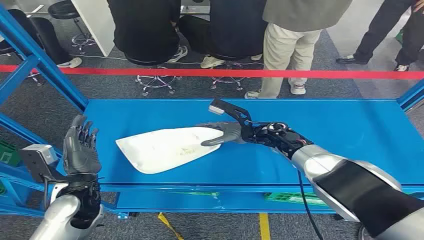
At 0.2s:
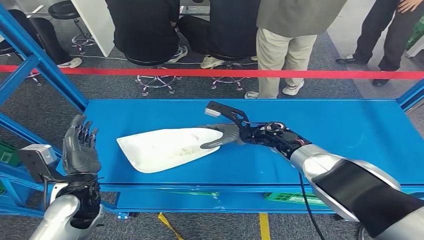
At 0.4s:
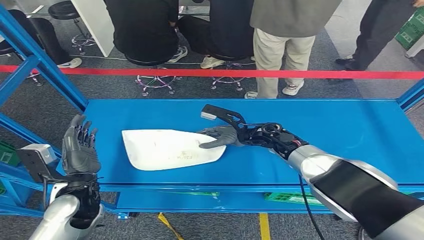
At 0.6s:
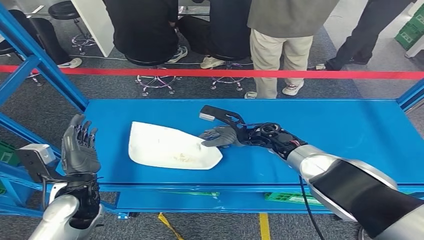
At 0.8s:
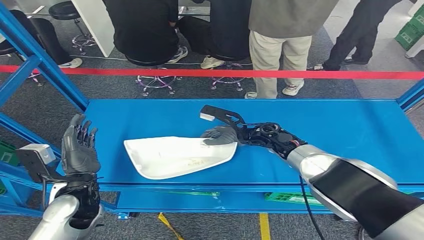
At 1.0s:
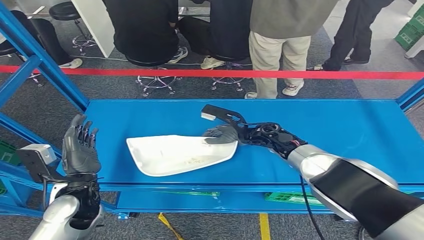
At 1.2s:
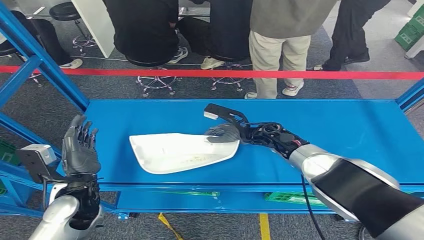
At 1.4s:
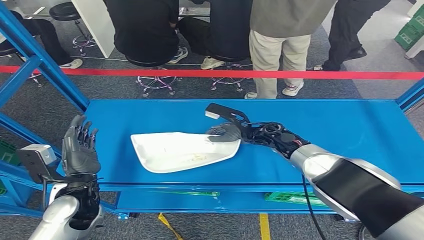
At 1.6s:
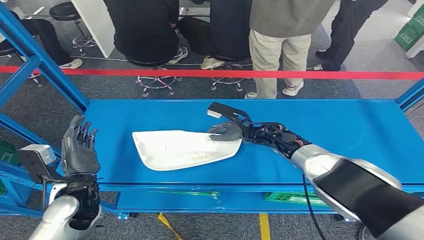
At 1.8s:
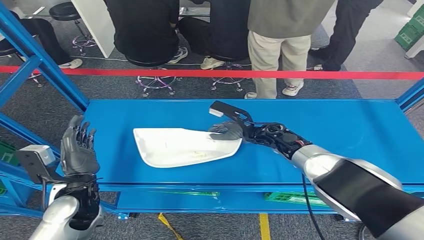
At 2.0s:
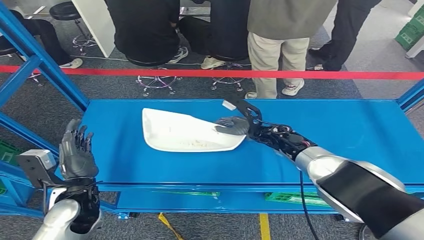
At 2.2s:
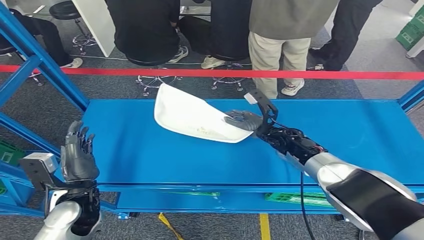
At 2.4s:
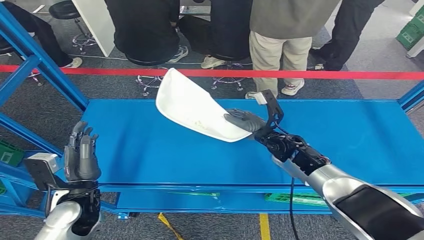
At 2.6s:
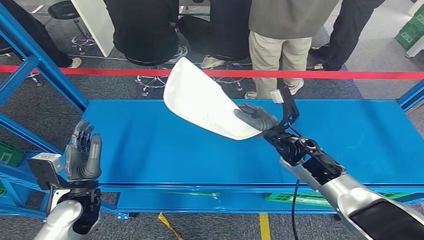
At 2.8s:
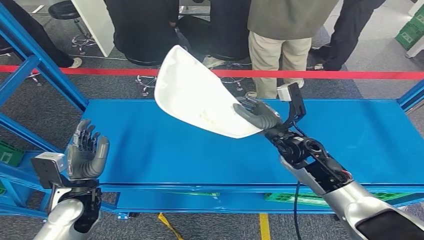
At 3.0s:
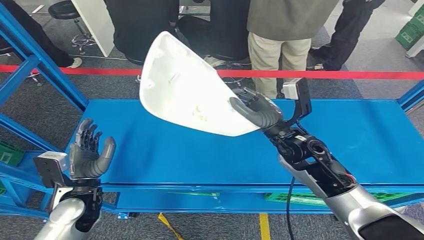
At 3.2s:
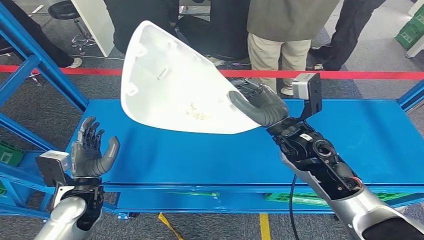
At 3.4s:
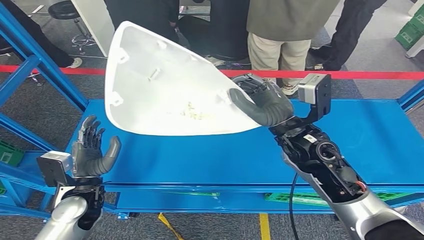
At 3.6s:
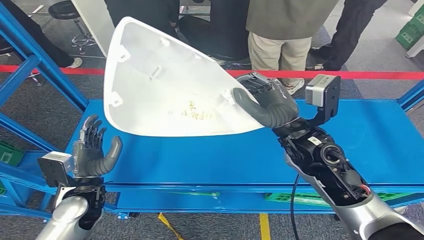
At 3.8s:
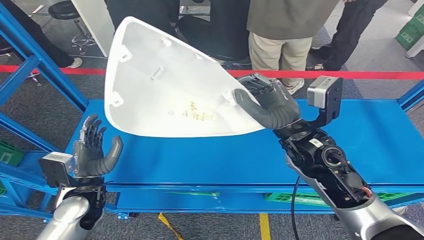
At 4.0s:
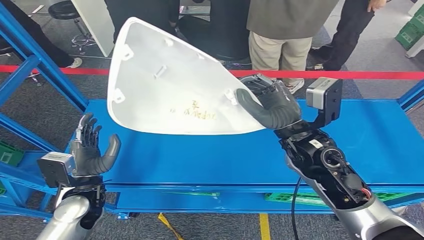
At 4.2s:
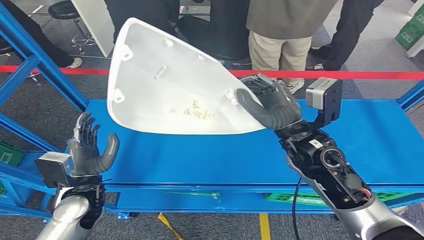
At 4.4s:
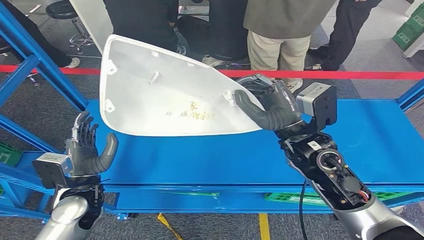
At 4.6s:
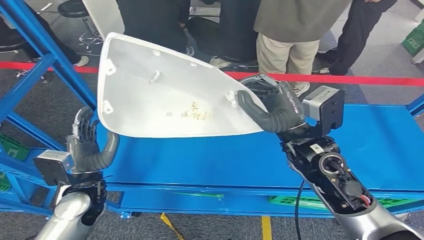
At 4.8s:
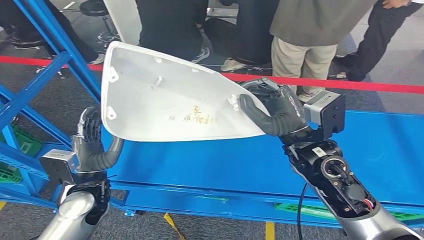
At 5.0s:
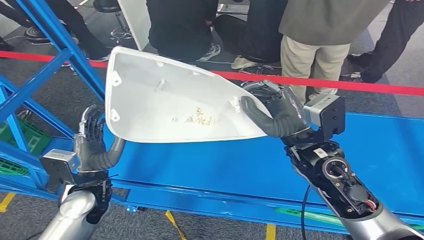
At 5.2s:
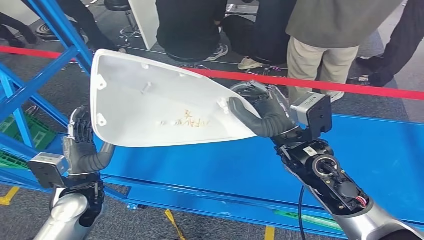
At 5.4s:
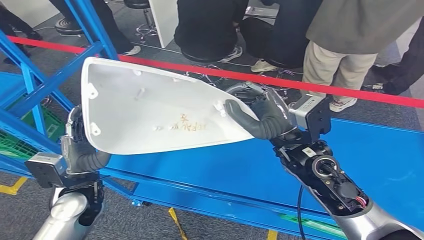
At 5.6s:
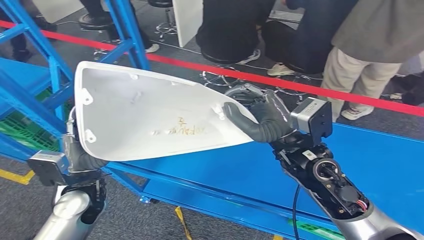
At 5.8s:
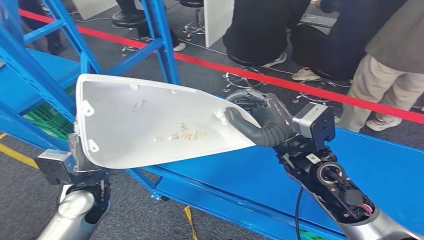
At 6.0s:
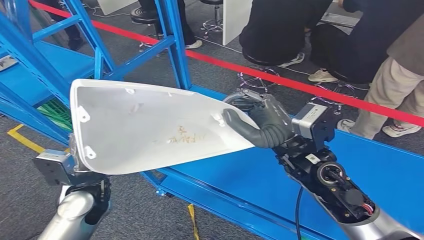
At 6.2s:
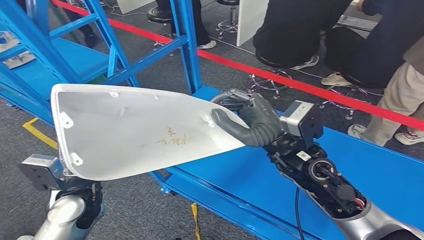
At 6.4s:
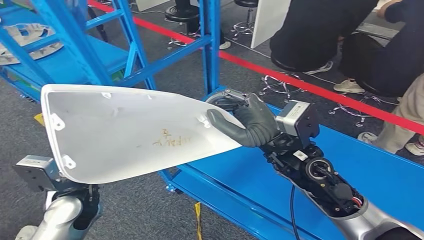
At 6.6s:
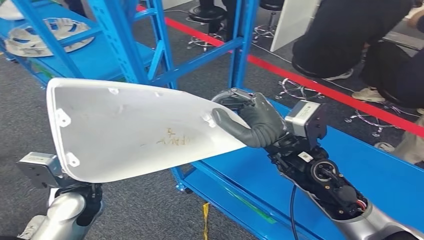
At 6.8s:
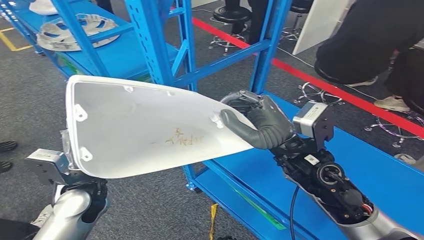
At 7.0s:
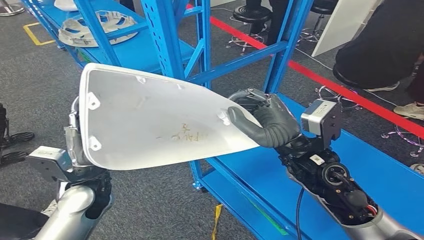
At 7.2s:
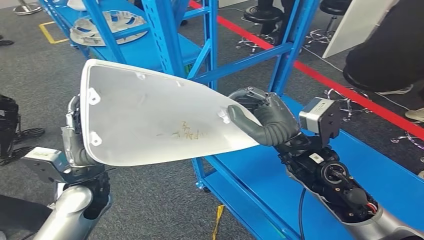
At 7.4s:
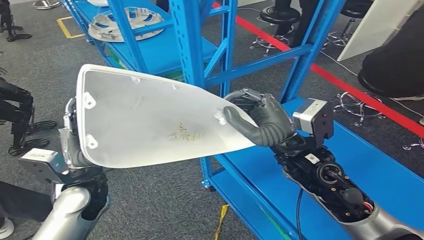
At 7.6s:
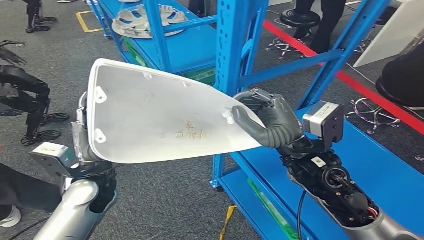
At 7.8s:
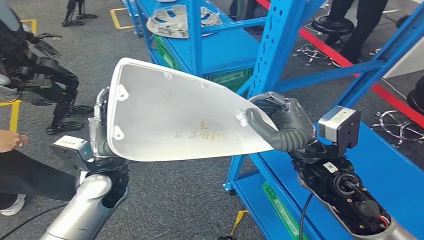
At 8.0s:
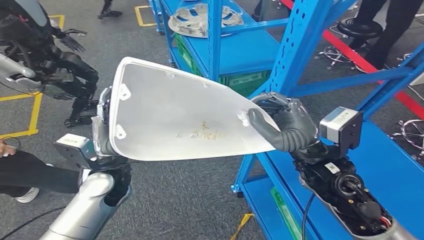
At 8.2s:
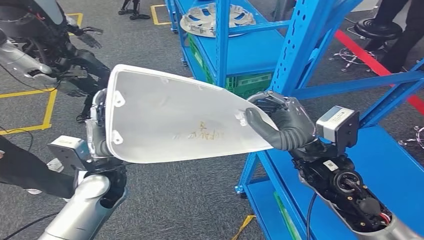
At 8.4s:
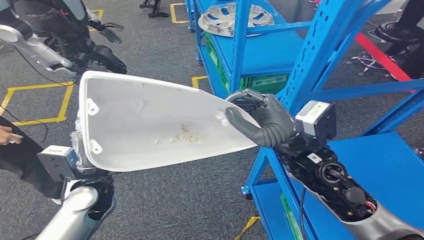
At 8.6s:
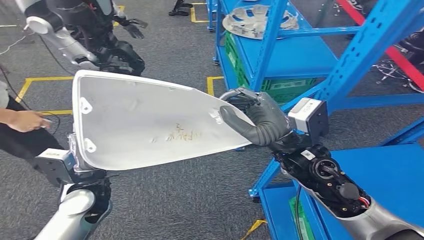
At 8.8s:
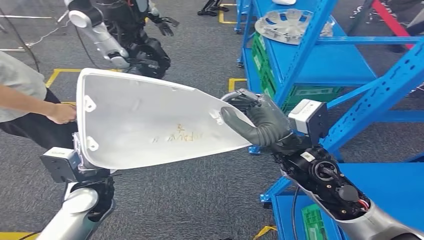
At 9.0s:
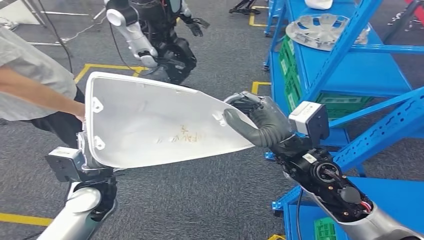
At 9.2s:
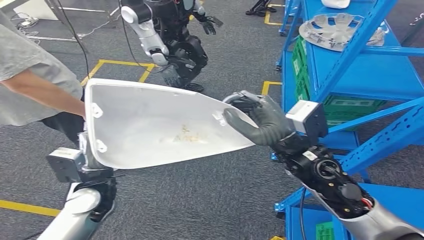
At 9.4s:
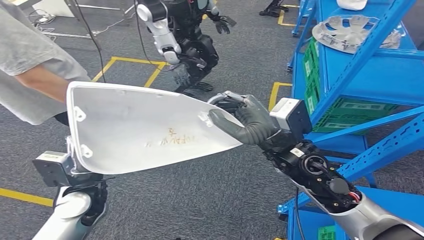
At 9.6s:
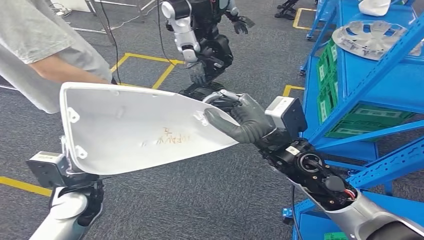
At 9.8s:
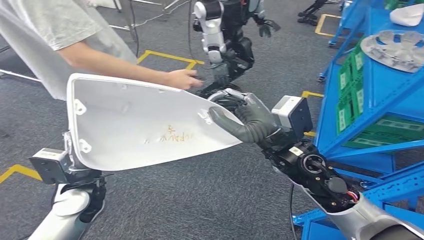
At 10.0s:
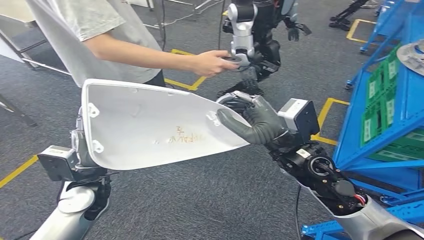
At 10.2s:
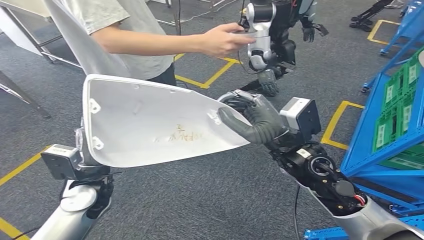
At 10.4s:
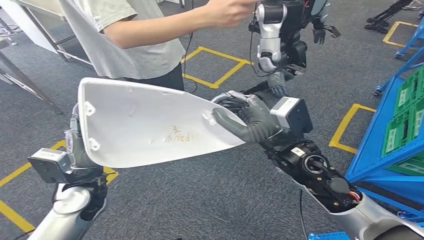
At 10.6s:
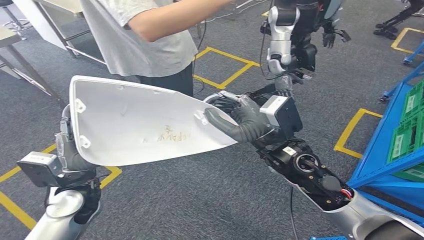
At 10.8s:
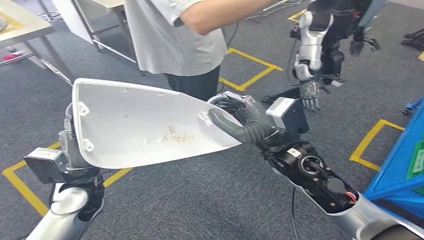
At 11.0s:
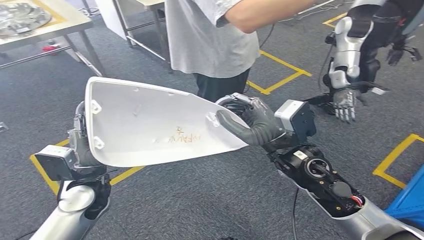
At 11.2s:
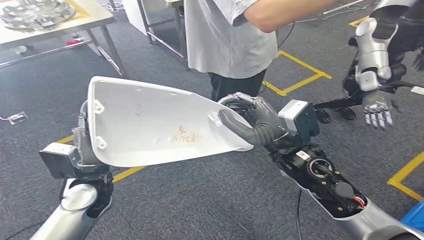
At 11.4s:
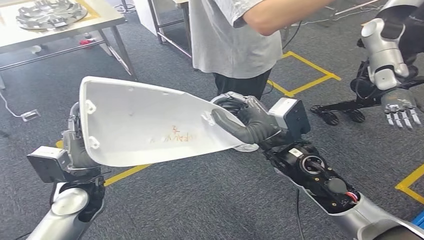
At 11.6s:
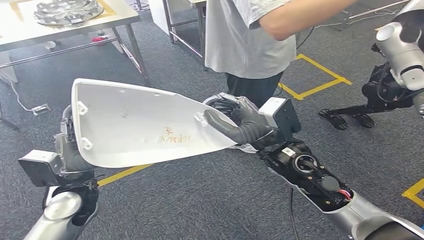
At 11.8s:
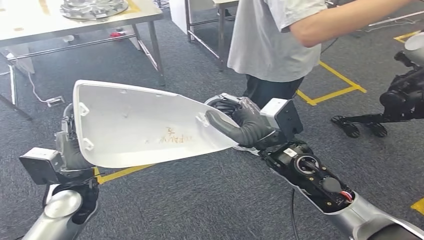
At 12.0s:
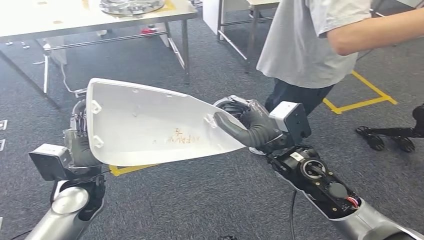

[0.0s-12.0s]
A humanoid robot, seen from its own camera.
Step, 0.0s to 6.4s: Pick up the small component from the shelf.

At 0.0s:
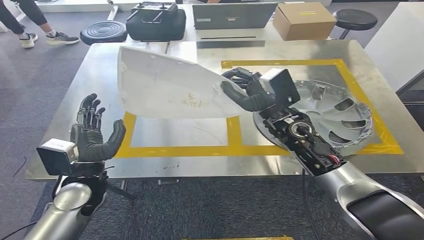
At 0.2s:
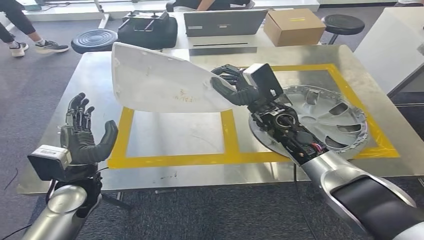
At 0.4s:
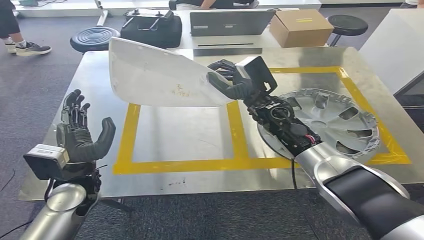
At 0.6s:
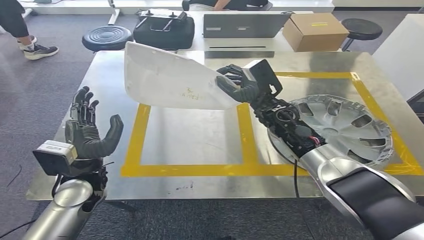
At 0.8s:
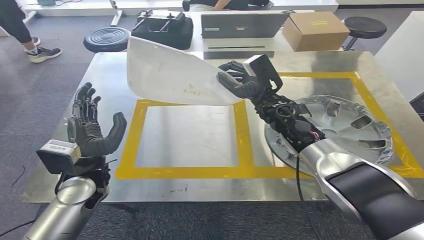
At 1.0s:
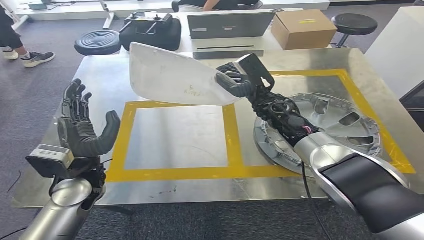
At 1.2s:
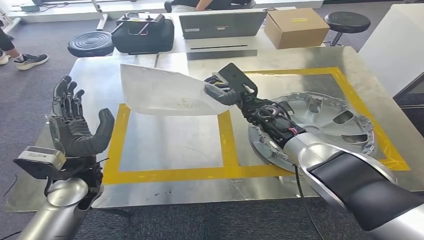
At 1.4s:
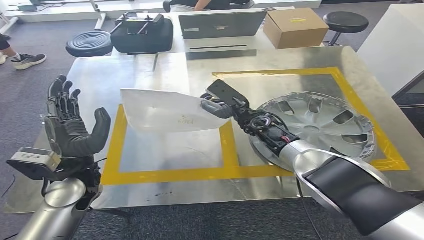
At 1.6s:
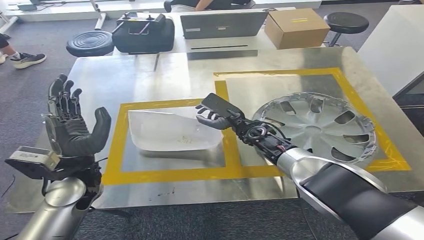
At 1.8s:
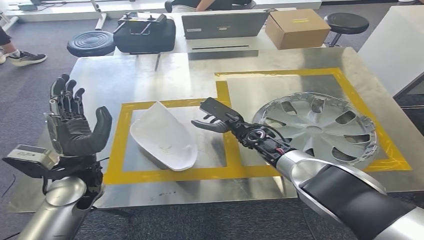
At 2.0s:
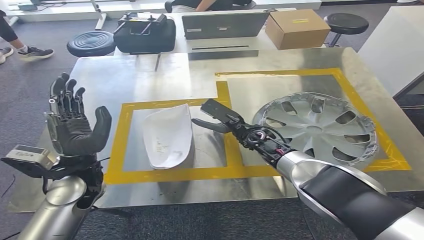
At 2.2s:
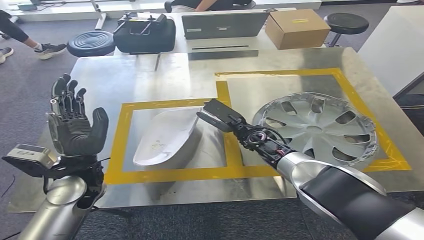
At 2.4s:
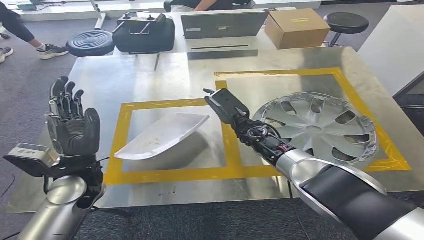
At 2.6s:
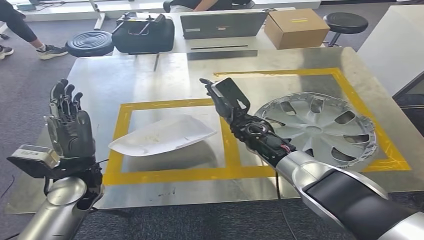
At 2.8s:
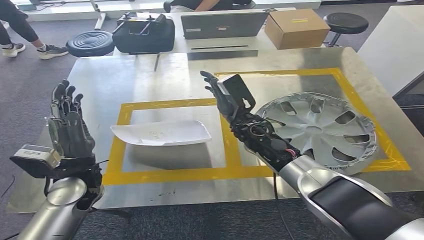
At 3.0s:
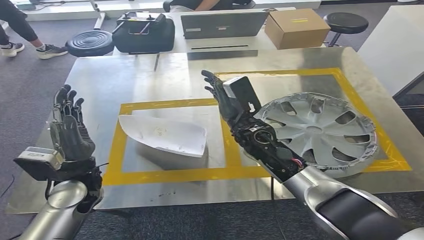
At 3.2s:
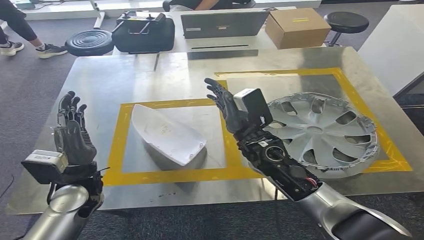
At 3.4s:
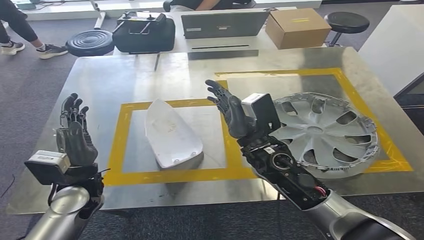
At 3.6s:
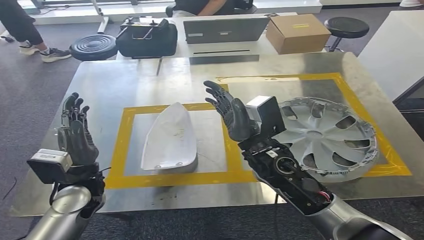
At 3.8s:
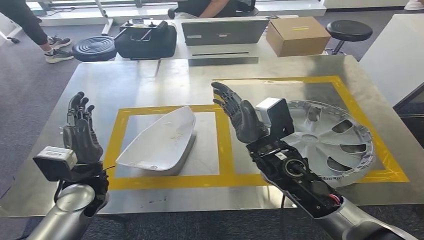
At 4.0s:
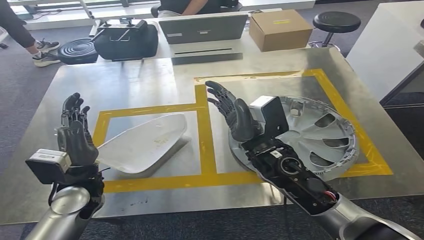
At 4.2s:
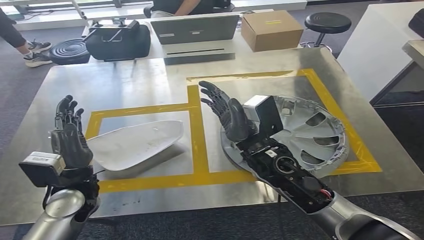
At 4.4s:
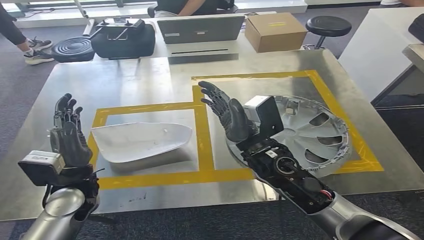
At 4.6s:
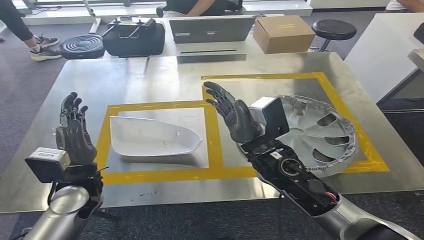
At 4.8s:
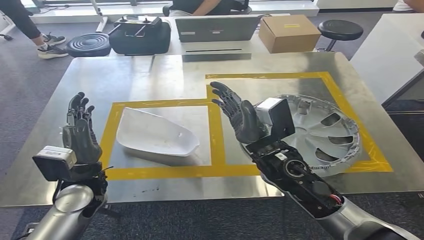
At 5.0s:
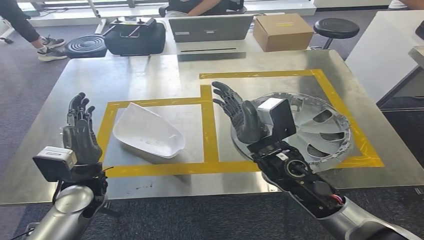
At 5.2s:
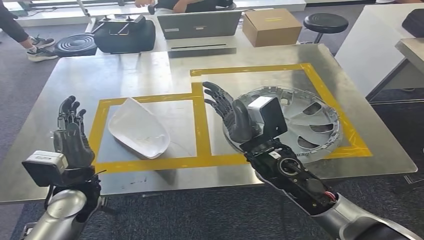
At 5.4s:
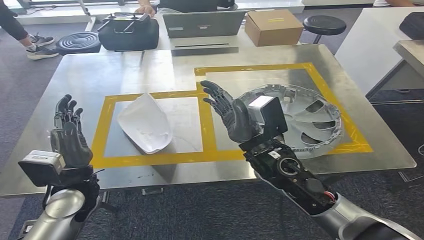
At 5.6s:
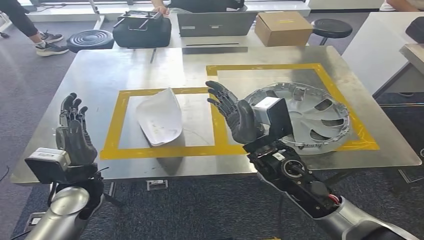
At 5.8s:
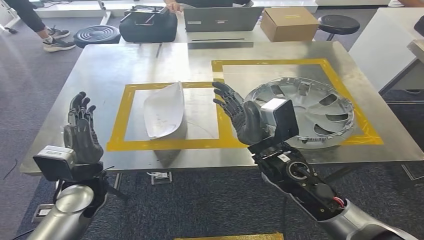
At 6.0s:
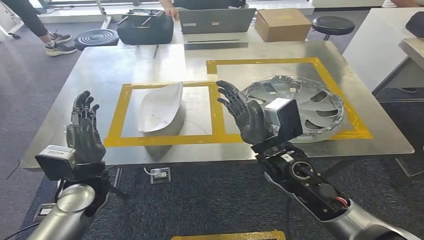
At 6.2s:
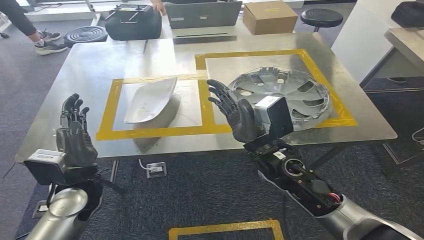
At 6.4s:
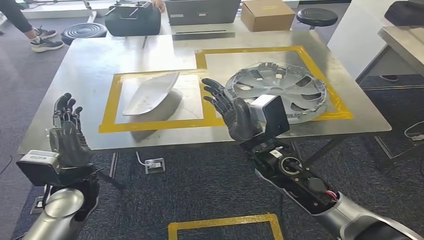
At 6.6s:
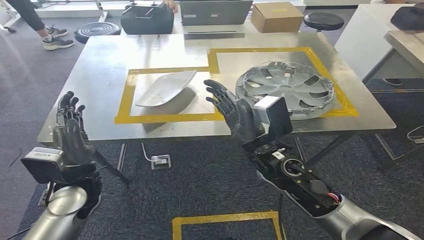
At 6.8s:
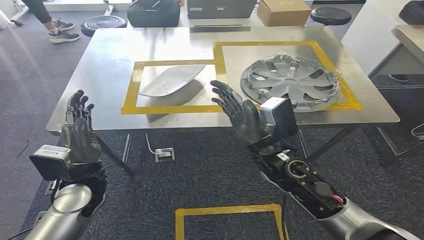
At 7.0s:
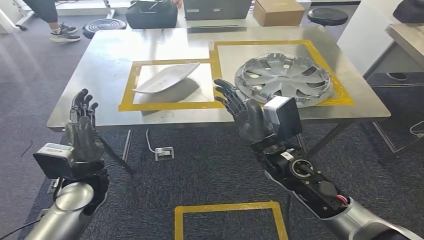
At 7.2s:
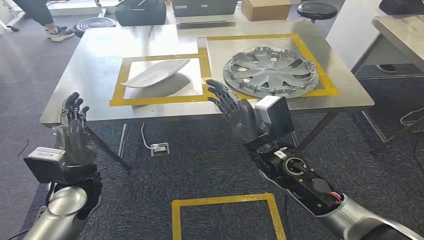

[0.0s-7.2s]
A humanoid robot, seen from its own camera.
Step, 0.4s to 4.2s: Insert the small component into the corresponding slot on the workbench.
